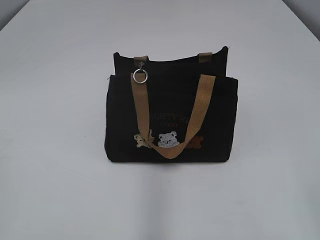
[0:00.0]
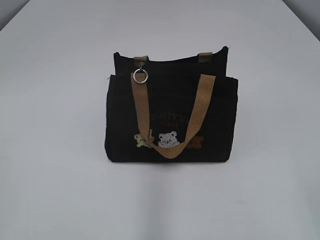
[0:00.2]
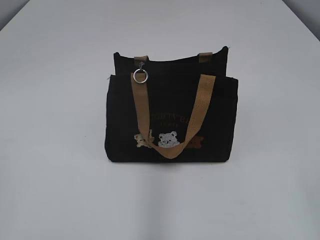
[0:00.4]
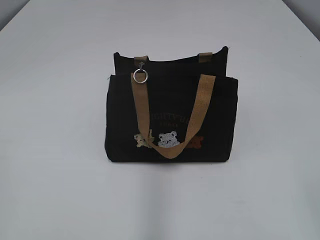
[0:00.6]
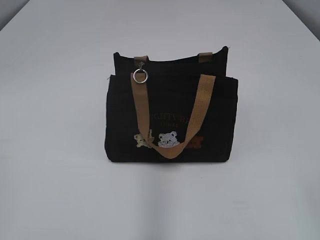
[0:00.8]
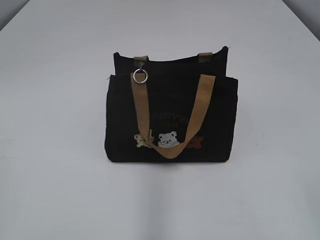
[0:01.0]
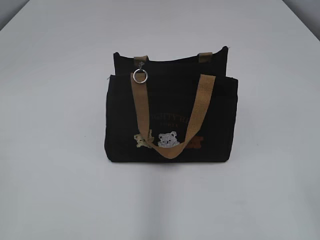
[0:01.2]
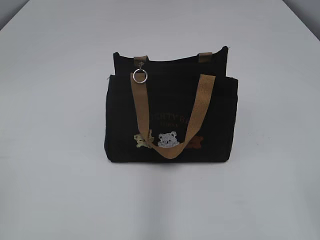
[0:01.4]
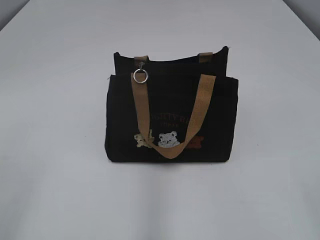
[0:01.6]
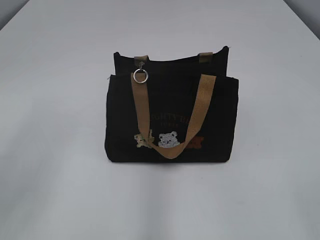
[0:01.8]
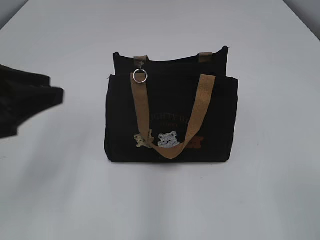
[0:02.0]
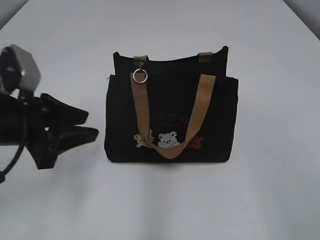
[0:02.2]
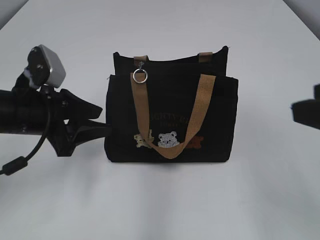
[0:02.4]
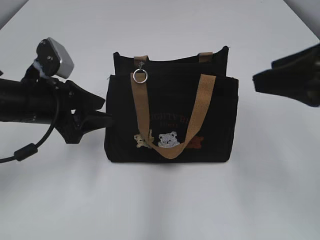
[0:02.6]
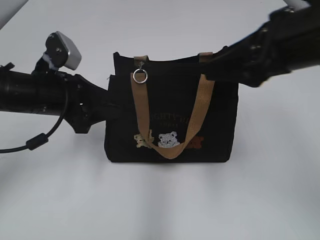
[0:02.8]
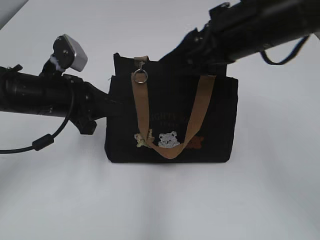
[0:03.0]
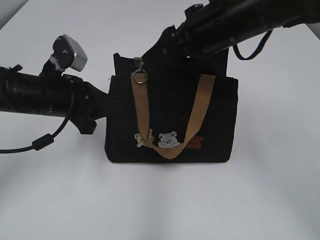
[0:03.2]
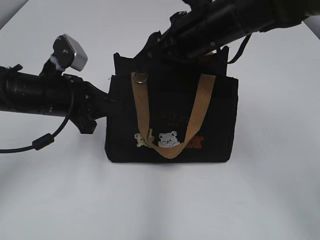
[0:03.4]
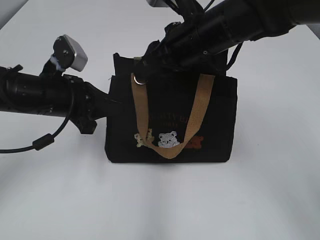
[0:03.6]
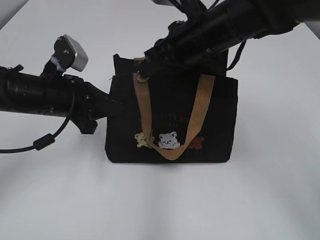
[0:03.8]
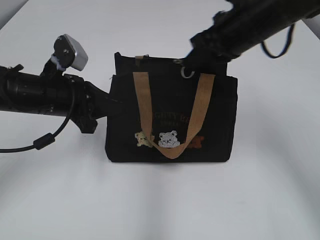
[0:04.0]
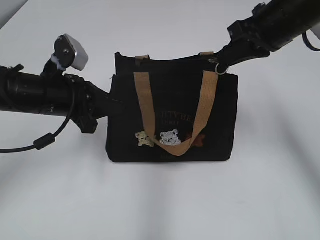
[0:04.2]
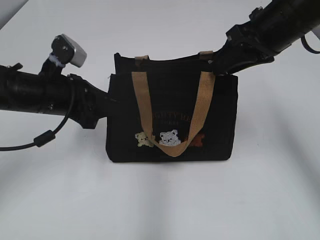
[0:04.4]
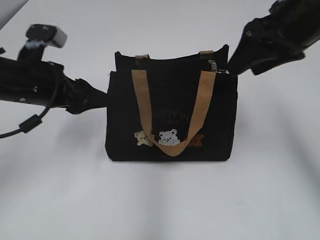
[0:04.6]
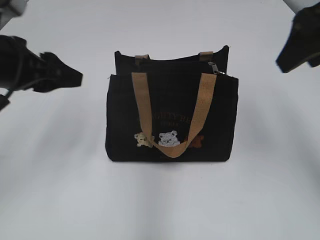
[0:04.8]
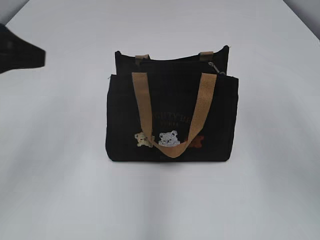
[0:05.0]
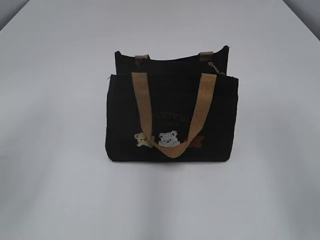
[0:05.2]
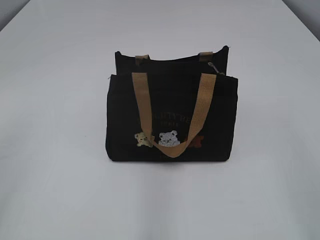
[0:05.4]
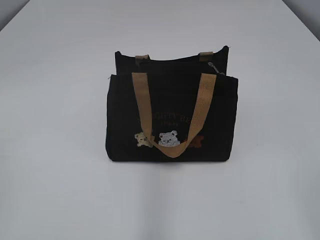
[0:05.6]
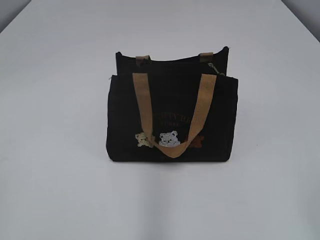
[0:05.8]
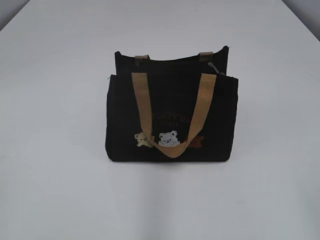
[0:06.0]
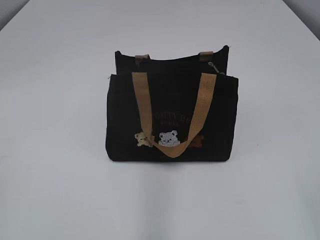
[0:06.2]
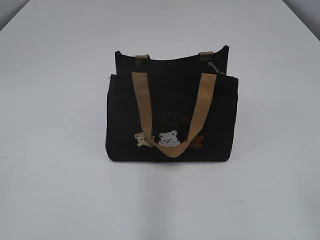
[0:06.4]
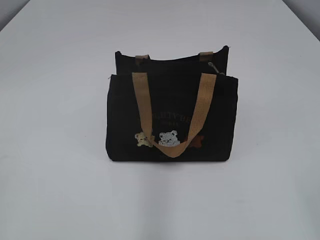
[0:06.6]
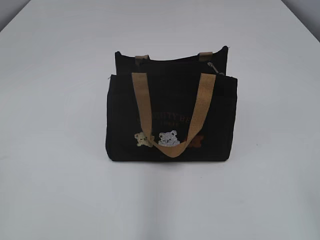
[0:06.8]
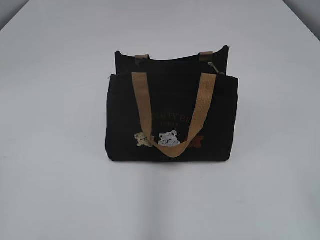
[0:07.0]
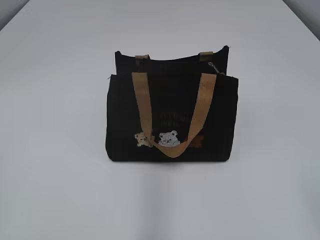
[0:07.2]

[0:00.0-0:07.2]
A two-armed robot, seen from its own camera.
Step, 0:00.0 to 0:04.4: Pull open the zipper with your right hand.
0:01.4 to 0:02.8: The right gripper travels forward by some 25 cm. The left gripper shifts some 30 cm forward and to the right, and opens its fingers.
0:02.8 to 0:04.4: The left gripper closes its fingers, while the right gripper is displaced forward by about 10 cm, and closes up.
0:04.4 to 0:05.8: The right gripper travels backward by roughly 35 cm, and opens, while the left gripper goes some 35 cm backward, to the left and upward, and opens.
0:05.8 to 0:07.2: The grippers move only a little.

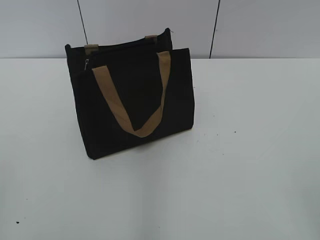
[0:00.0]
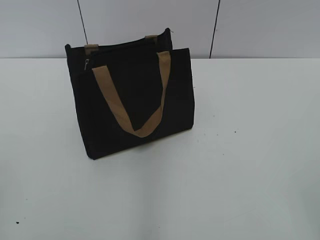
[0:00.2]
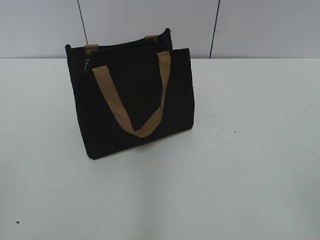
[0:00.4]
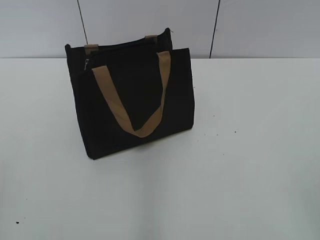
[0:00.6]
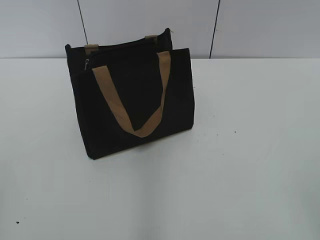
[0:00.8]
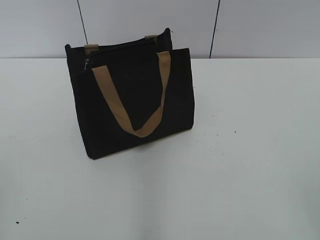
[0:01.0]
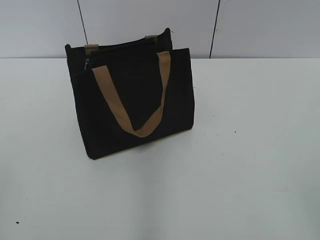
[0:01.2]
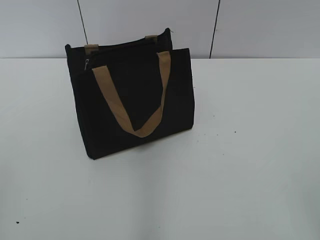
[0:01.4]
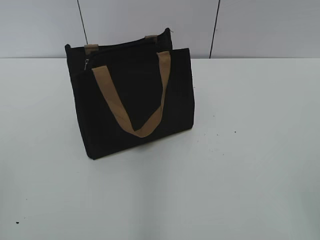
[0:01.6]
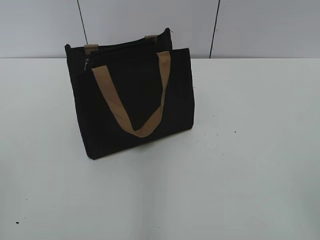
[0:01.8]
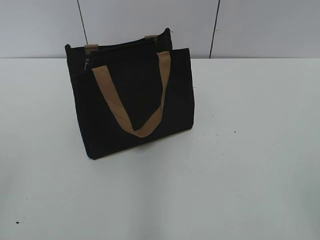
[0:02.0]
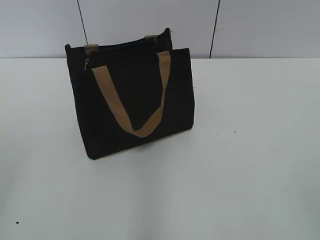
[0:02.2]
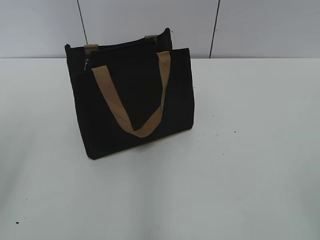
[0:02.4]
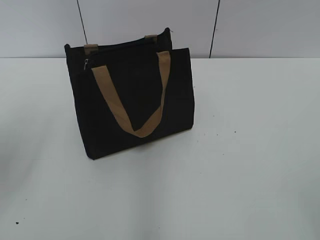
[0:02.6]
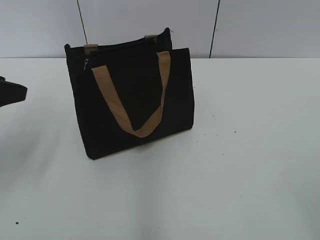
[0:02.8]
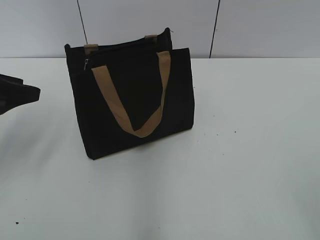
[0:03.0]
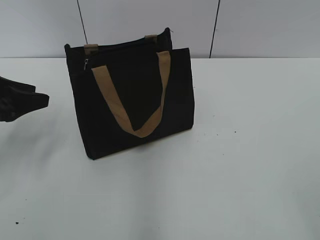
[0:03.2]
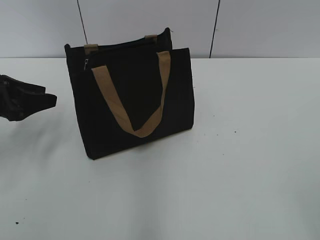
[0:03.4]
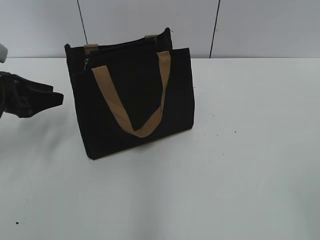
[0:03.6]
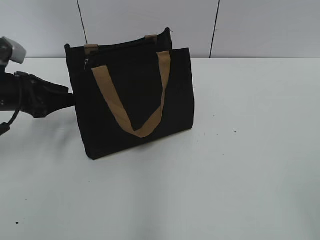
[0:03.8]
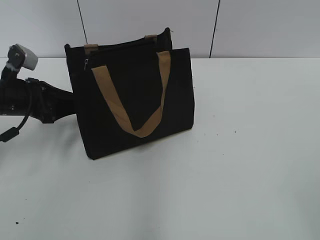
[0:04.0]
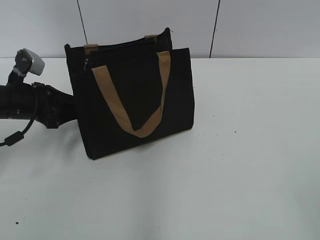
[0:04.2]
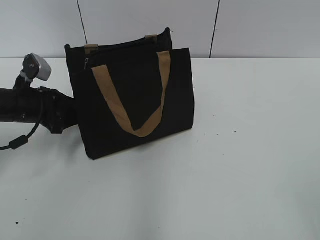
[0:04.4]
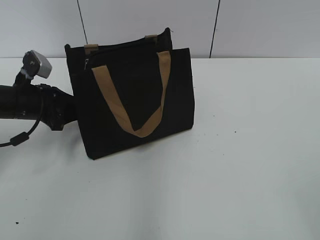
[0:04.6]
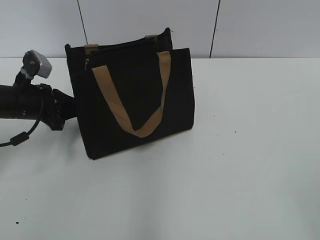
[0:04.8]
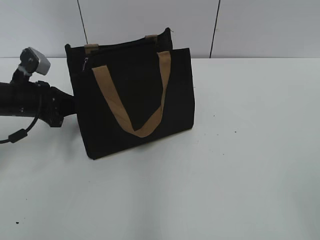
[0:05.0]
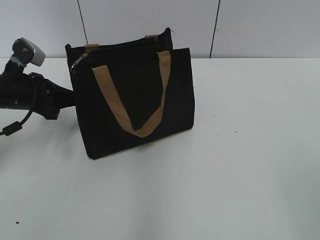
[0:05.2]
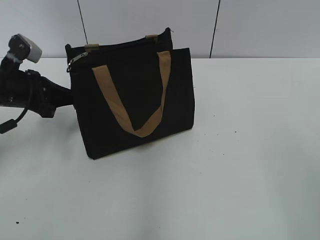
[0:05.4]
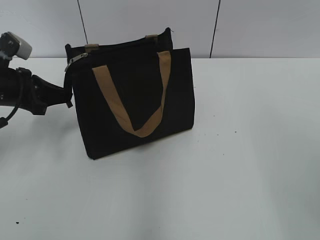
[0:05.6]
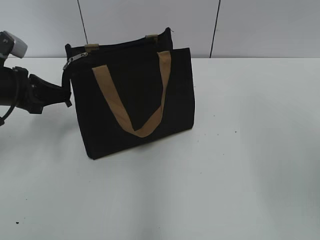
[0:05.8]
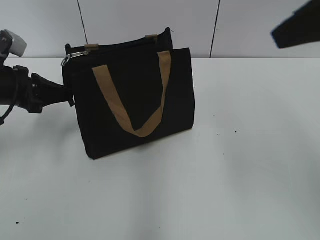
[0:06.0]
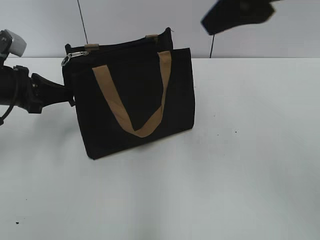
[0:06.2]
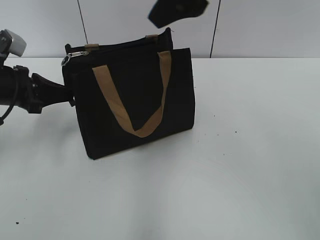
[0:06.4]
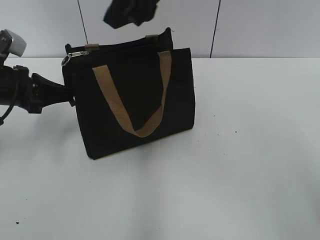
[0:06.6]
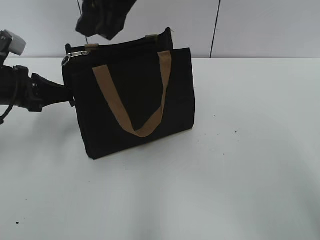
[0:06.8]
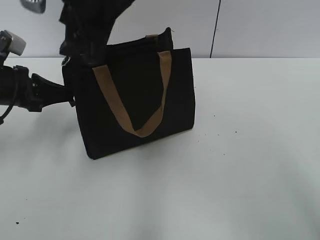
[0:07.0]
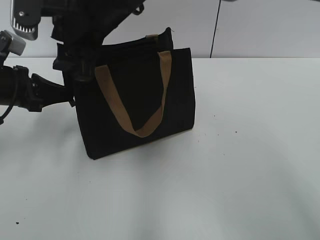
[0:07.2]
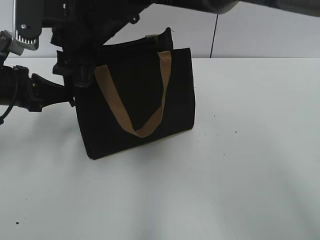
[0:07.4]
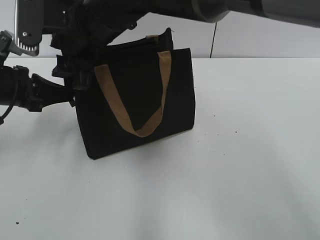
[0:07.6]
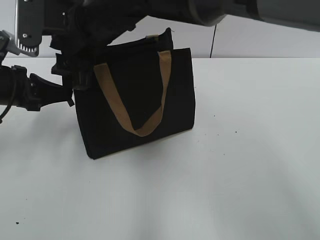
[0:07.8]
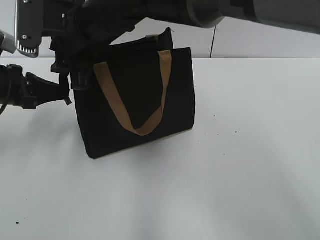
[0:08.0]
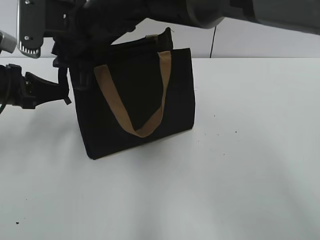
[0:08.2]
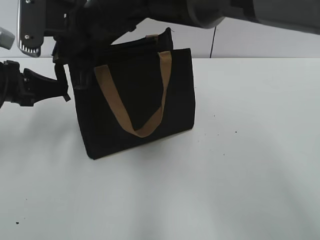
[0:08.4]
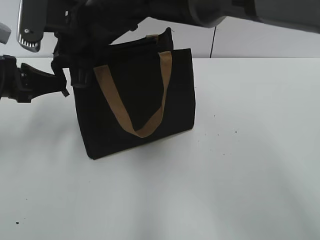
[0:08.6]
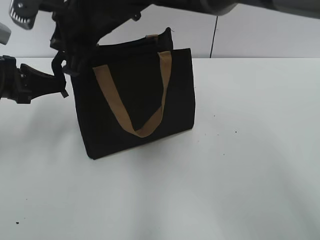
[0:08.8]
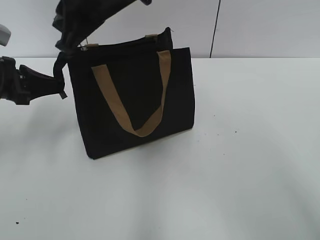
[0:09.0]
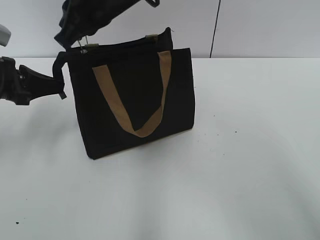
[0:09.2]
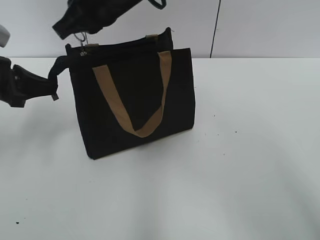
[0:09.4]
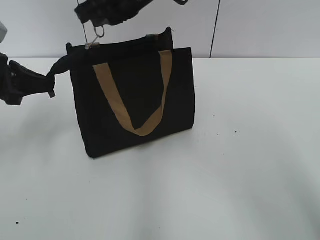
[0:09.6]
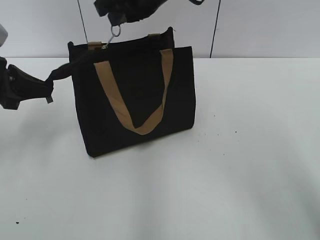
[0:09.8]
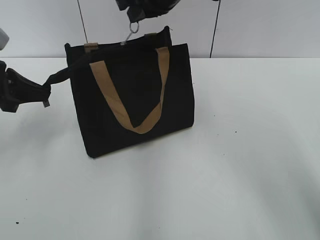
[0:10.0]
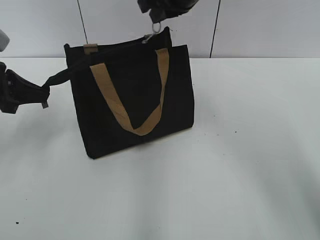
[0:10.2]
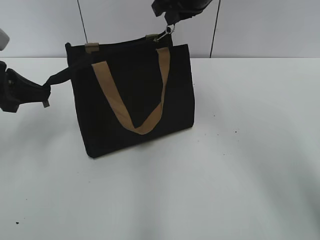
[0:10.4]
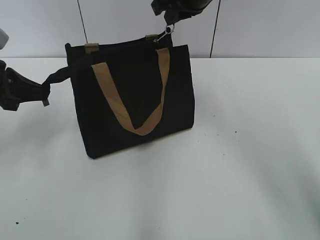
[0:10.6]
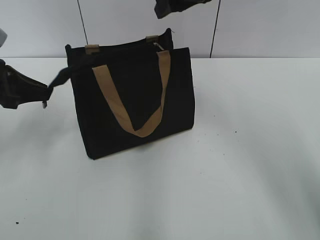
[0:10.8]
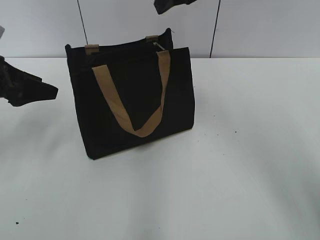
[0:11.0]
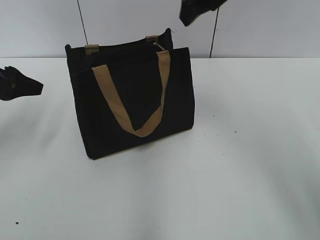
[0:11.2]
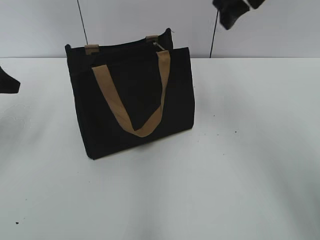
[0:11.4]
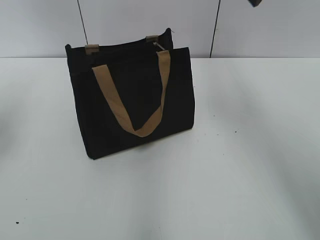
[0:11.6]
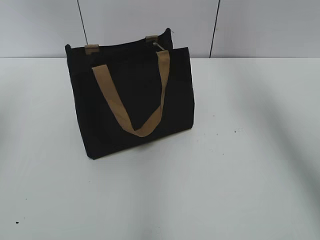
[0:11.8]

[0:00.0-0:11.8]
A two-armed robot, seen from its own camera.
Step, 0:00.0 to 0:10.6: Zip up the bag with your right hand.
0:01.4 to 0:03.0: The left gripper moves forward, roughly 25 cm.
0:03.0 to 0:04.4: The left gripper shifts roughly 15 cm downward and forward.
0:04.4 to 0:06.0: The right gripper heads forward and upward, covering about 25 cm, while the left gripper closes.
0:06.0 to 0:07.4: The right gripper goes roughly 30 cm to the left and forward.
0:07.4 to 0:08.8: The right gripper closes its fingers.
0:08.8 to 0:10.4: The right gripper moves to the right and forward, about 15 cm.
0:10.4 to 0:11.8: The right gripper travels to the right, upward and backward by approximately 15 cm, and opens. Meanwhile the left gripper heads upward and to the left, covering roughly 10 cm, and opens its fingers.

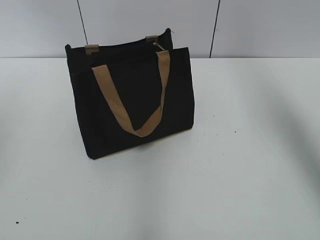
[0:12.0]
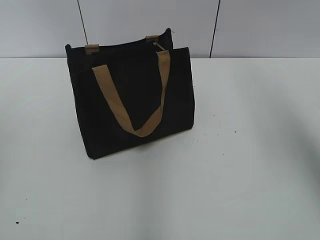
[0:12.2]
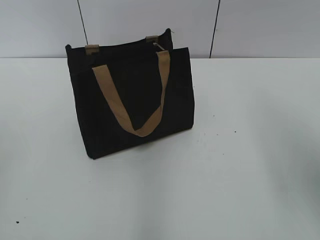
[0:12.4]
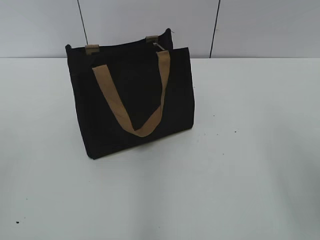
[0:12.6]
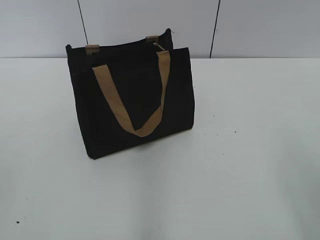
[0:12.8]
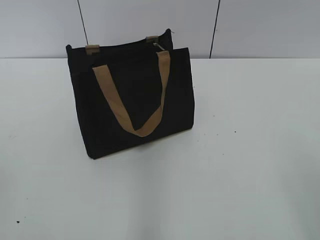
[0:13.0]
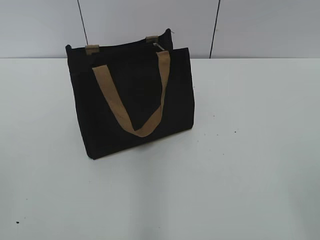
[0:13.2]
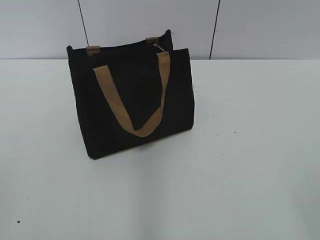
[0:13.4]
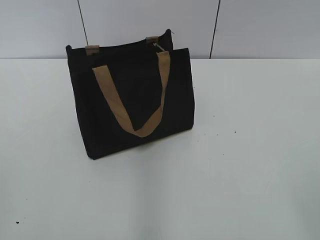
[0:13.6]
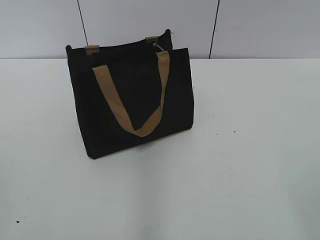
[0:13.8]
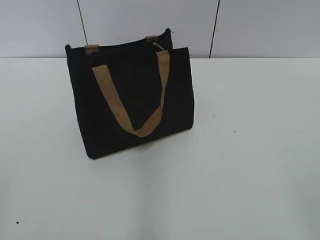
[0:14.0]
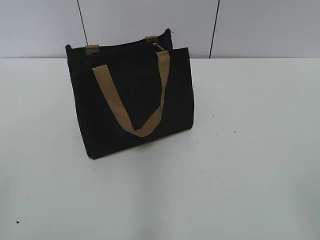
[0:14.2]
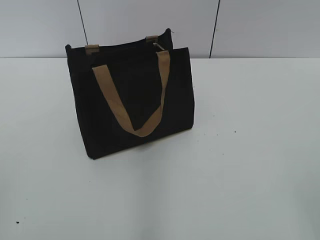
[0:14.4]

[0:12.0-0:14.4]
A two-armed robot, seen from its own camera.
0:12.0 to 0:13.2: The right gripper travels backward and downward by about 35 cm.
